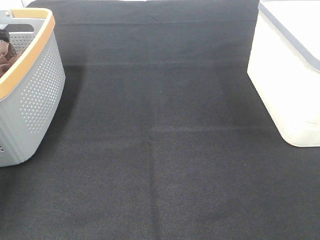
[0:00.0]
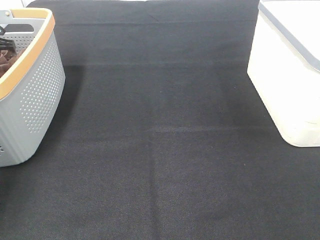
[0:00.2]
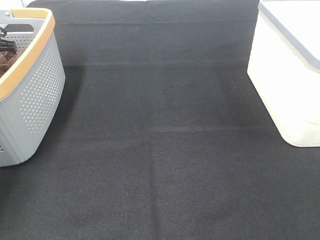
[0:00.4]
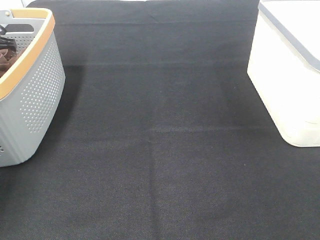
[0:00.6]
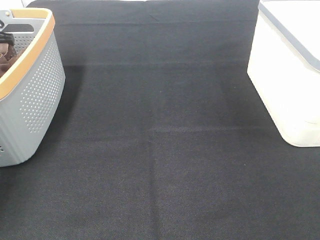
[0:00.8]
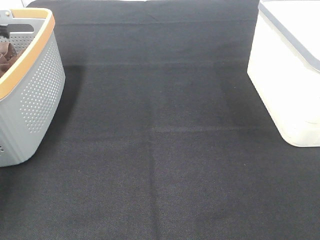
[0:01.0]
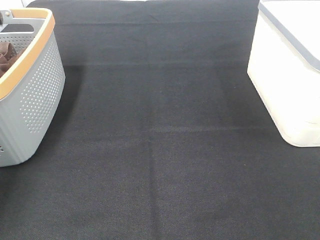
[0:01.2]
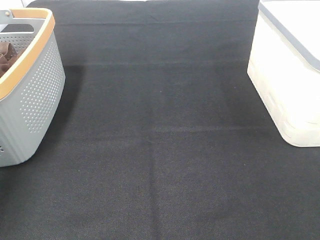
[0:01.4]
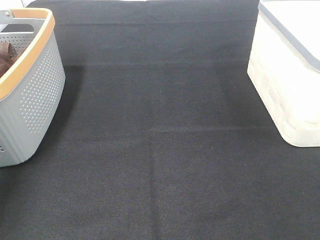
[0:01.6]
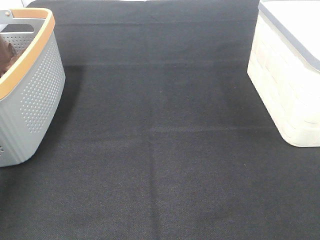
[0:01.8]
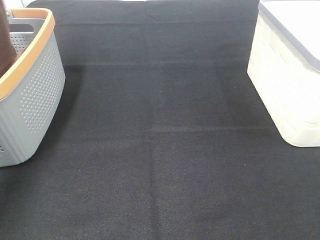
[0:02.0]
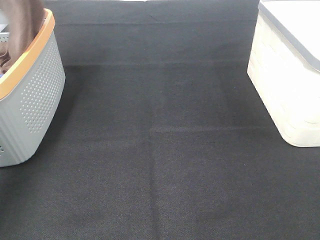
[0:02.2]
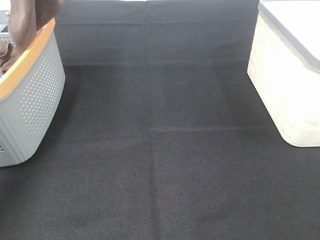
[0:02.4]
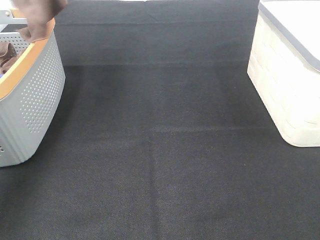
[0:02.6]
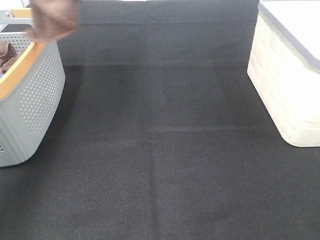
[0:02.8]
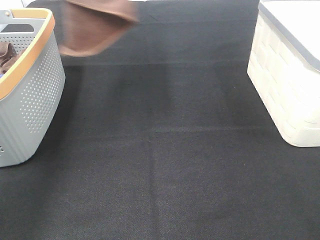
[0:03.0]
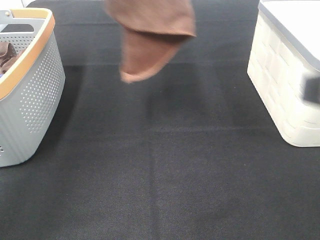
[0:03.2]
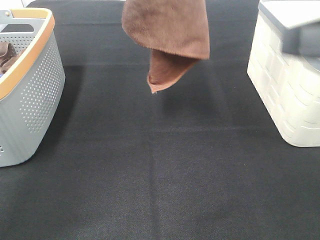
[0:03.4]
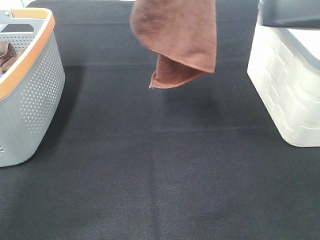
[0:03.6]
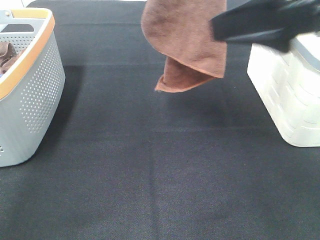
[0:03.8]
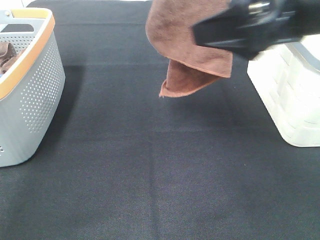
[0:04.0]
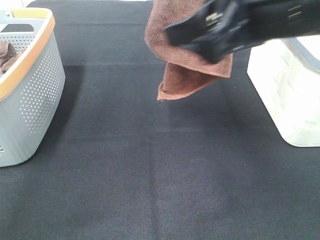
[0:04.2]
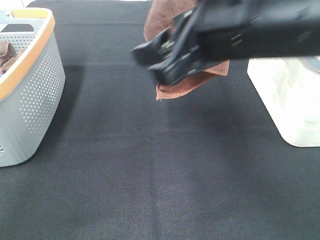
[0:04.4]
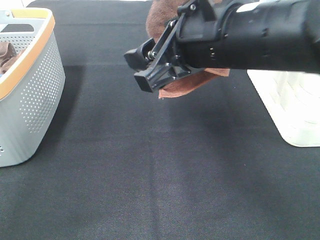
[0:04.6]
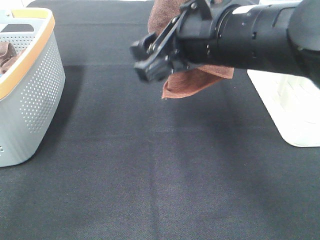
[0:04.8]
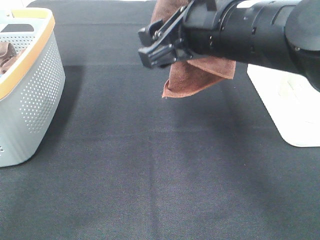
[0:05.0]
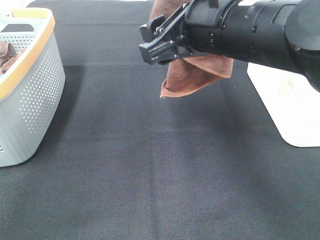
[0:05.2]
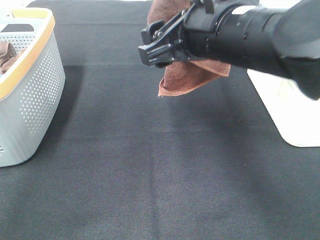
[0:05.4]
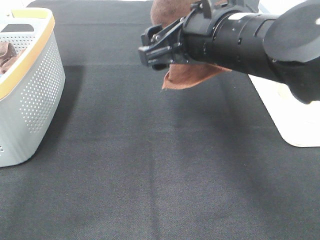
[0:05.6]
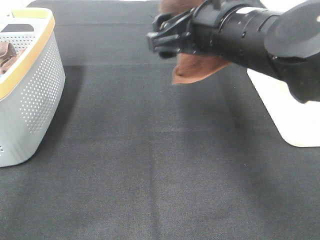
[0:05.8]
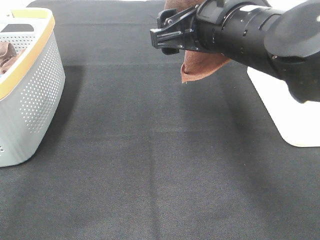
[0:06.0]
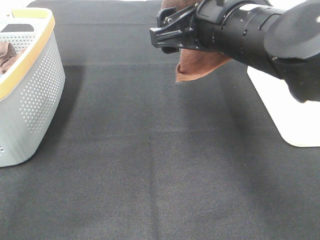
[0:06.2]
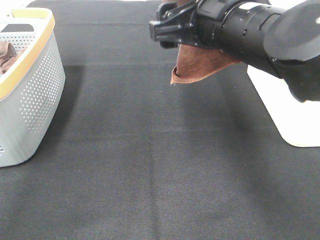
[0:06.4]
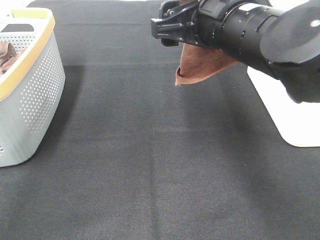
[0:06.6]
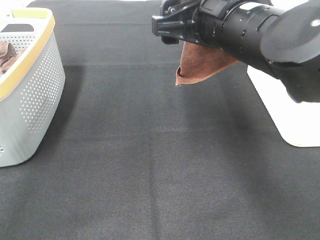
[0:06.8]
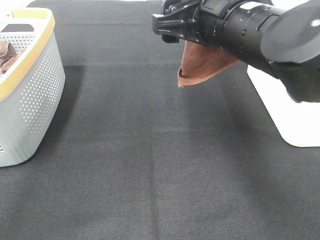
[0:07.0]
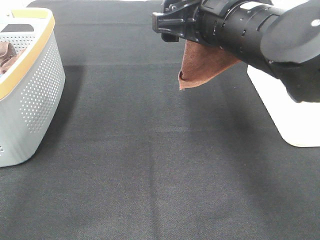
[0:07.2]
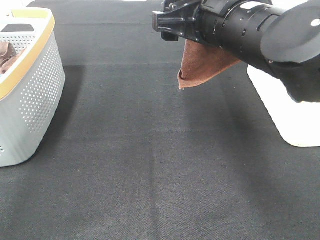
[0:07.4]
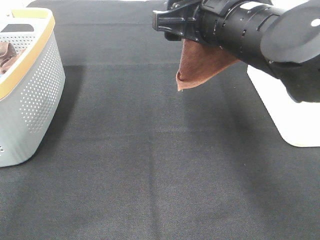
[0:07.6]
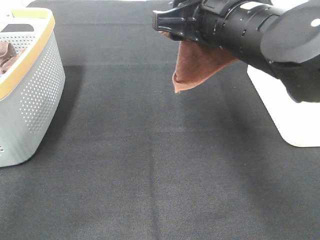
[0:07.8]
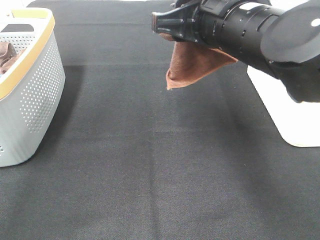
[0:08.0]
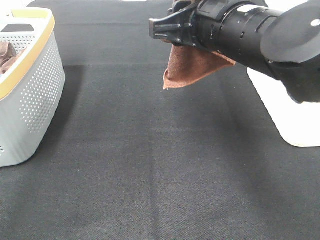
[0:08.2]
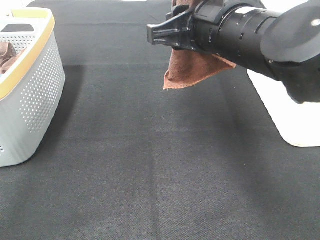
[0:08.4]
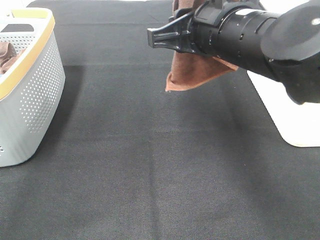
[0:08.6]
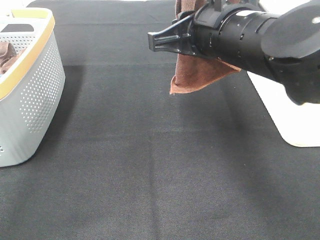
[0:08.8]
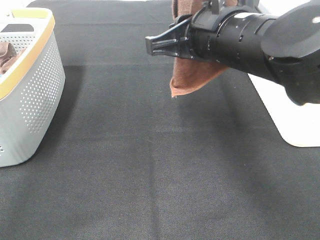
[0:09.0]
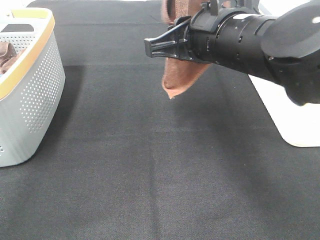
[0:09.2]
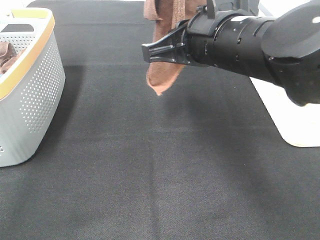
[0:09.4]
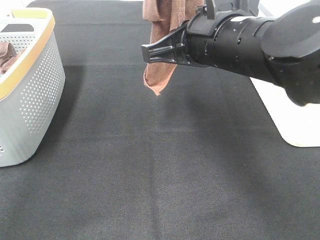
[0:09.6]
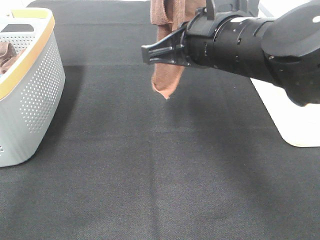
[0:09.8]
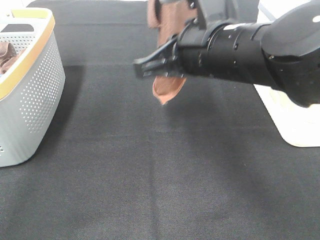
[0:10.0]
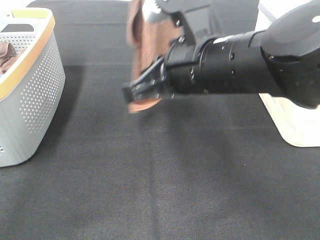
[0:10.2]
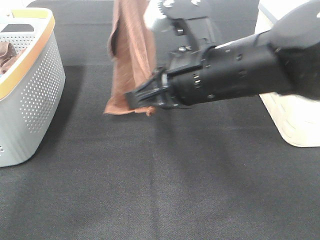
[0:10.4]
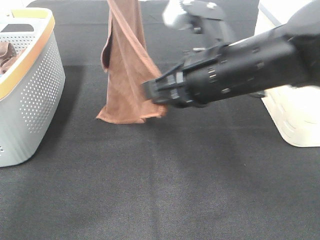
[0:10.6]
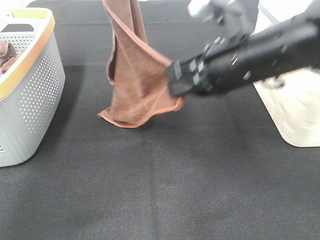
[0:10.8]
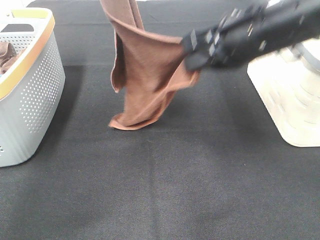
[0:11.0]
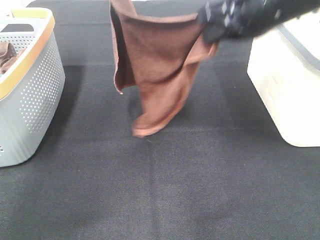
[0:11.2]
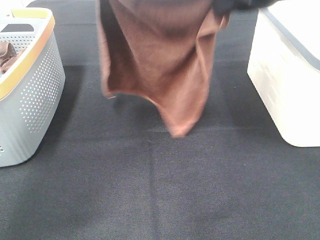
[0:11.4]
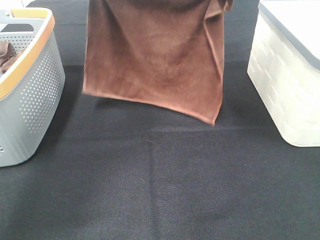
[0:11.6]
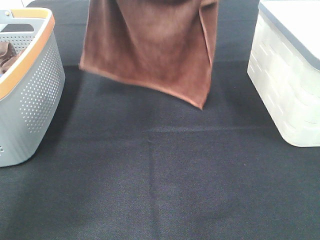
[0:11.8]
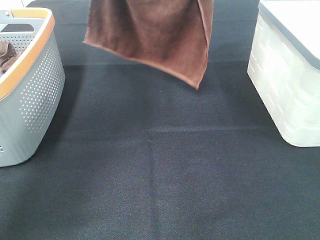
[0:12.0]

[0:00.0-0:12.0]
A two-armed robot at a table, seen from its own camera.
Task of the whole recording: Remove the towel and place it.
Step, 0:01.4 to 0:07.8: Right hand: grab a corner of the brown towel and straighten it.
Step, 0:08.0 to 0:10.8: Left hand: spread the brown towel flat on the table.
Step, 0:08.0 to 0:10.8: Right hand: spread the brown towel flat on the table.
0:00.0 to 0:01.6: The left gripper heads upward, covering some 15 cm, and closes its fingers.
0:01.6 to 0:03.0: The right gripper is displaced forward by some 5 cm. Meanwhile the left gripper heads to the right, upward and backward, covering roughly 25 cm.
0:03.0 to 0:04.4: The right gripper heads to the left and forward, covering roughly 20 cm; the left gripper heads to the right, covering some 15 cm.
0:06.0 to 0:07.6: The grippers make only small movements.
0:07.6 to 0:09.0: The right gripper closes.
0:09.0 to 0:10.4: The left gripper changes place by roughly 5 cm, while the right gripper closes.
0:10.4 to 0:12.0: The left gripper shifts some 15 cm forward and downward, while the right gripper shifts approximately 20 cm forward, upward and to the right.

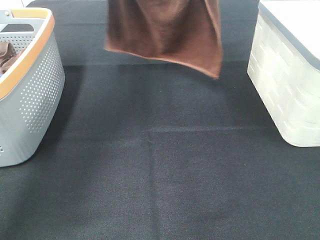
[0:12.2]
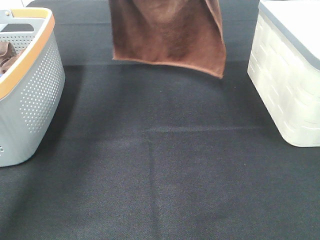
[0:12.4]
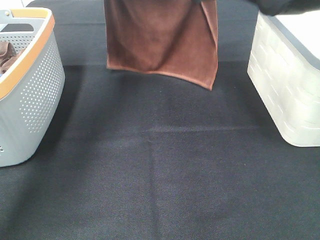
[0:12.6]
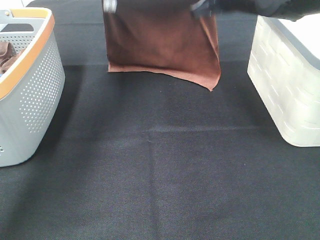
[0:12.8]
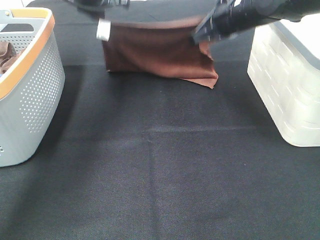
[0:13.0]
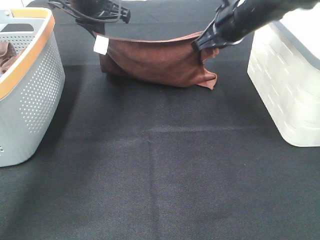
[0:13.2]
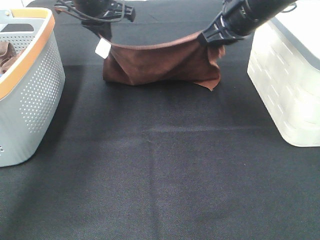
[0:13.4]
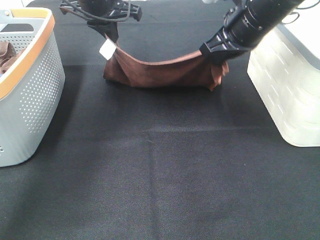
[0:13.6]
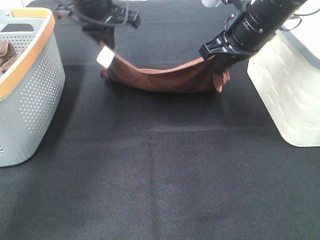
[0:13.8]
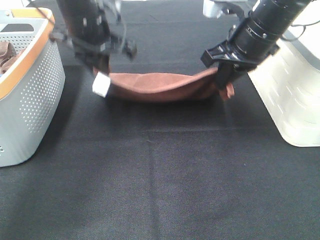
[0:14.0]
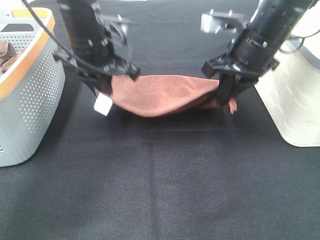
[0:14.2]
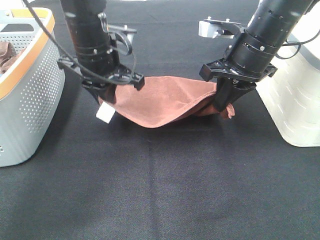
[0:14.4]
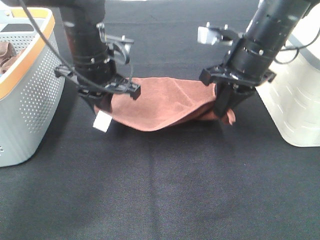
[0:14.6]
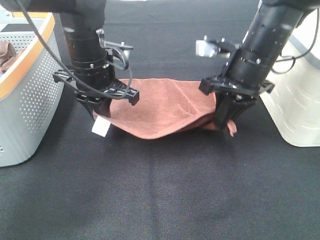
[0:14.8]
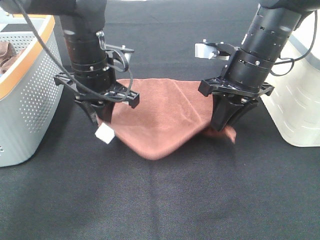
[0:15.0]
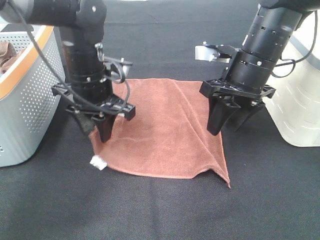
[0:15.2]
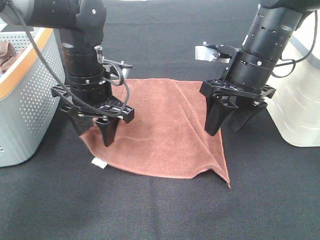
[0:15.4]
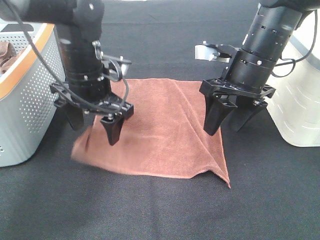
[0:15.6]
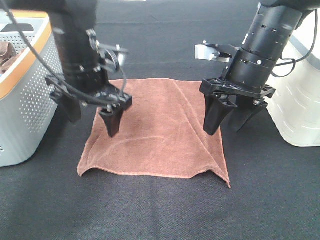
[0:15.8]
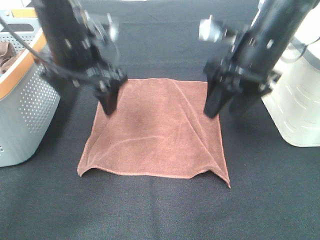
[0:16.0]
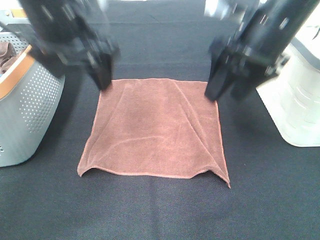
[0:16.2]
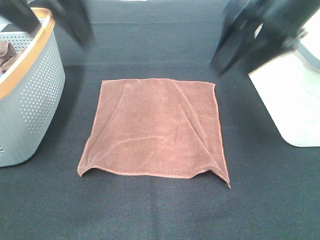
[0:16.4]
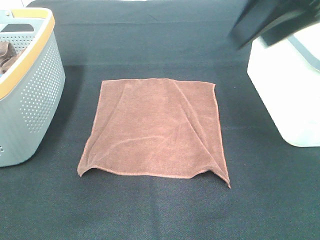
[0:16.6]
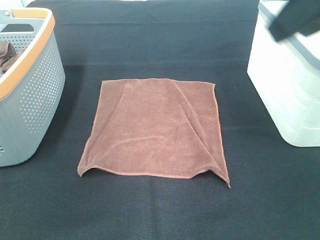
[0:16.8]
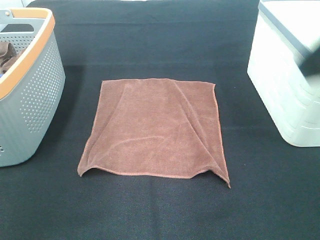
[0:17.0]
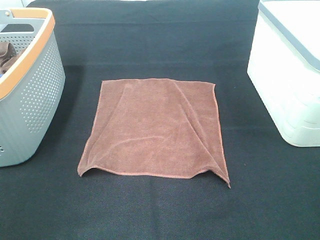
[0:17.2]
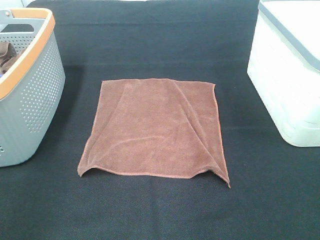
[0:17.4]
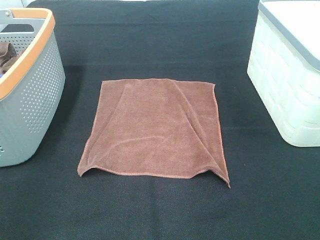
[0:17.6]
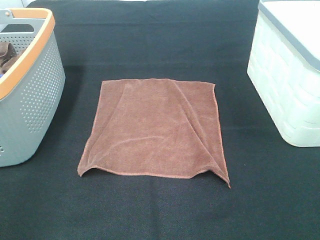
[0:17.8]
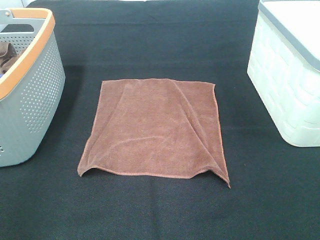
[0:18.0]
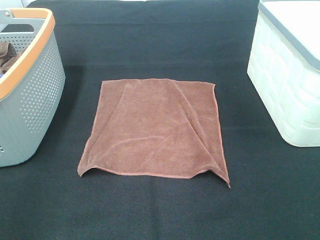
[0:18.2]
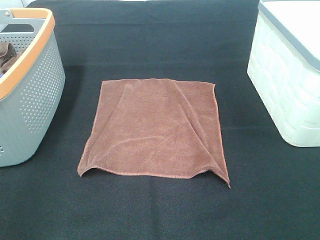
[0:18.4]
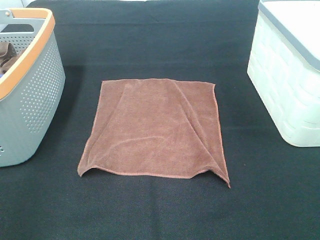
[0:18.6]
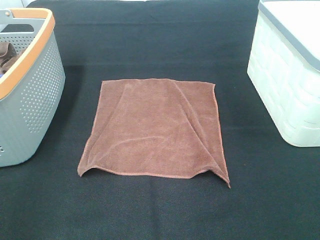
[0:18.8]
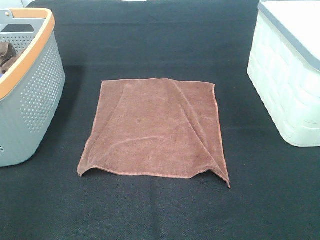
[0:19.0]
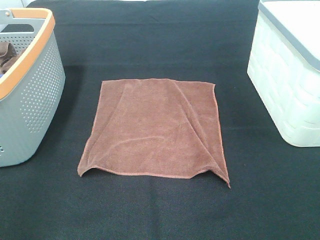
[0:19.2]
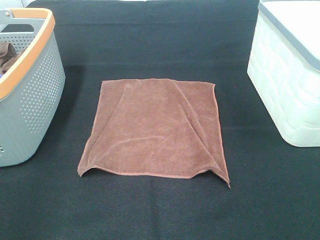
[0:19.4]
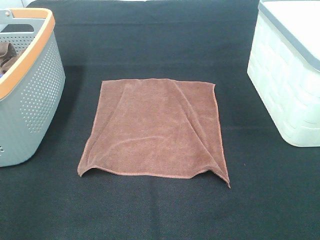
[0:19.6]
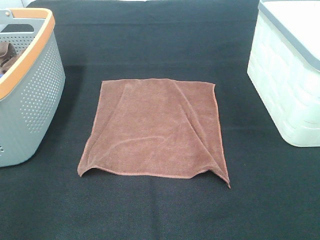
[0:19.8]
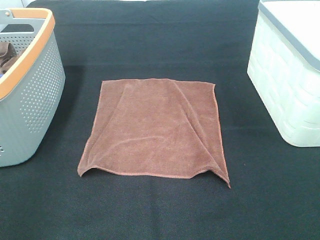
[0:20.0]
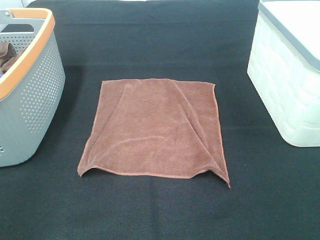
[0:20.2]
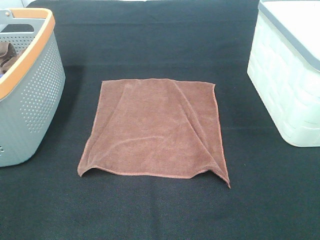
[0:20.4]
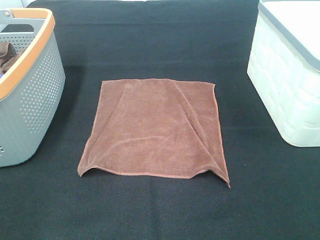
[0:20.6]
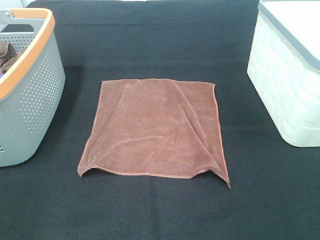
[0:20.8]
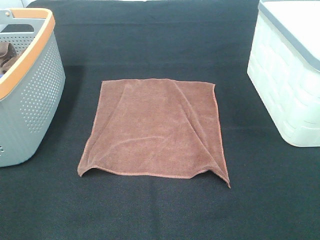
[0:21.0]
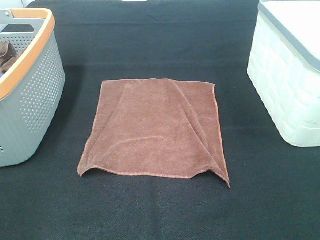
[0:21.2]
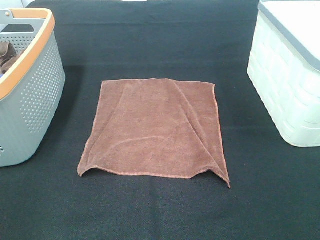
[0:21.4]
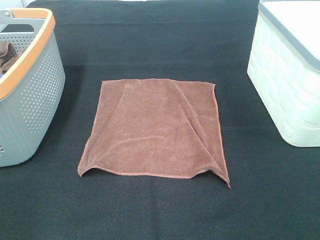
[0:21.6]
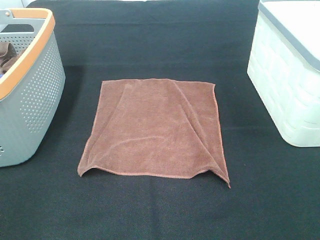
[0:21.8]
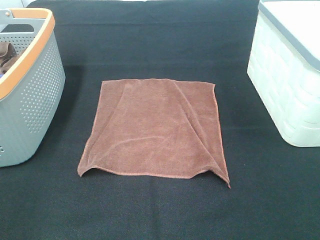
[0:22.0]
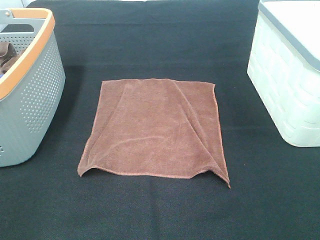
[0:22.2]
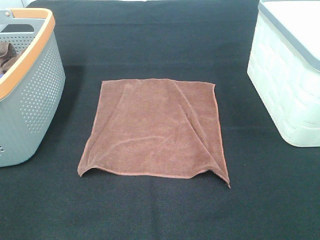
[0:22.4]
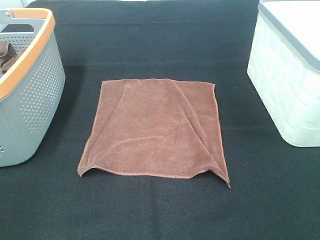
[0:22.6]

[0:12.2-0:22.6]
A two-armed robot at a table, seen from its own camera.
Task of the whole recording: Remove the towel and place it.
0:12.2 to 0:13.6: The grippers both shift downward by roughly 10 cm.
0:13.6 to 0:15.2: The left gripper travels backward and downward by roughly 15 cm, and opens up. Meanwhile the right gripper is displaced downward by about 5 cm, and opens its fingers.
0:15.2 to 0:16.6: The right gripper goes some 20 cm upward and backward, while the left gripper goes some 35 cm upward and backward, and opens its fingers.
0:16.6 to 0:18.2: The left gripper is displaced downward, backward and to the left by some 25 cm. Meanwhile the right gripper travels backward, downward and to the right by about 25 cm.
0:21.2 to 0:22.6: Neither gripper changes place.
